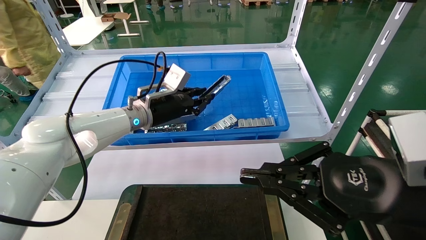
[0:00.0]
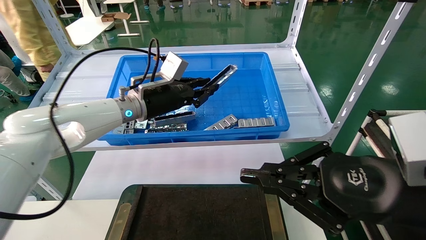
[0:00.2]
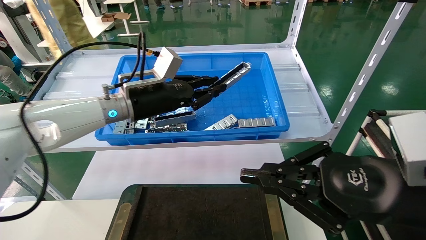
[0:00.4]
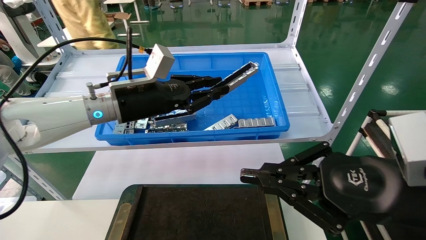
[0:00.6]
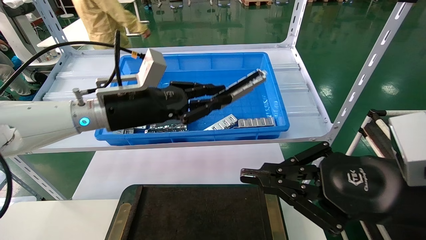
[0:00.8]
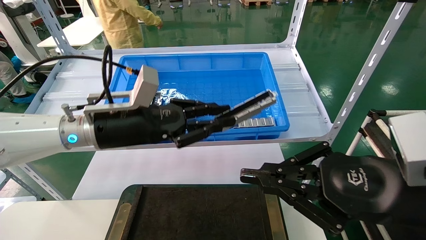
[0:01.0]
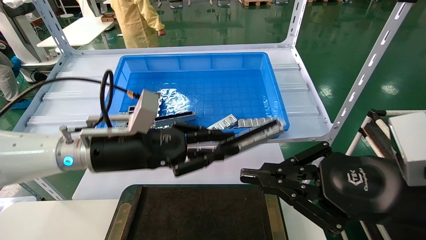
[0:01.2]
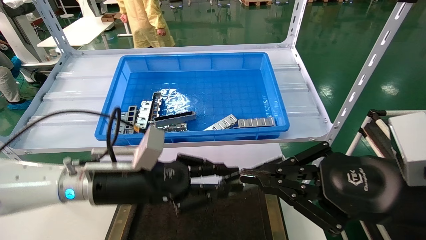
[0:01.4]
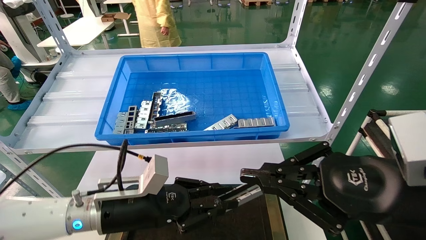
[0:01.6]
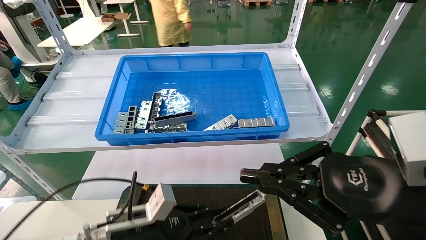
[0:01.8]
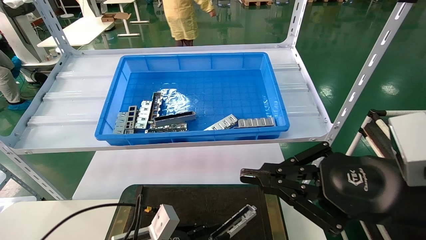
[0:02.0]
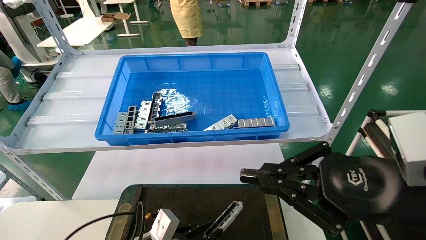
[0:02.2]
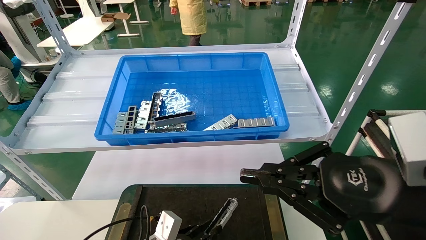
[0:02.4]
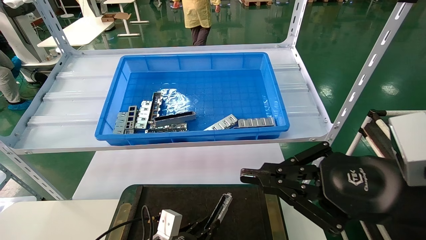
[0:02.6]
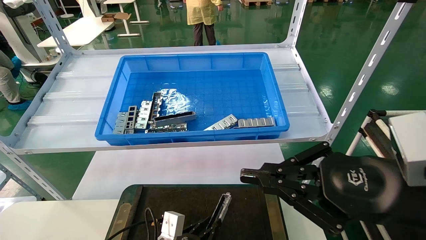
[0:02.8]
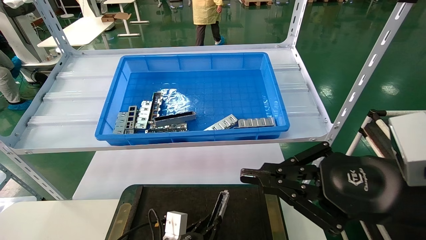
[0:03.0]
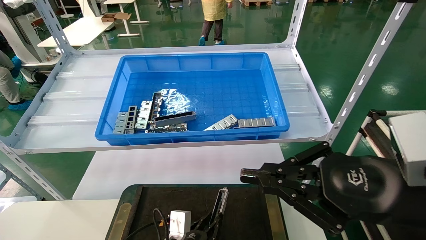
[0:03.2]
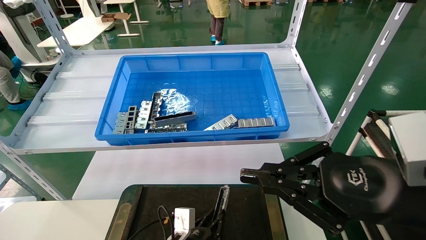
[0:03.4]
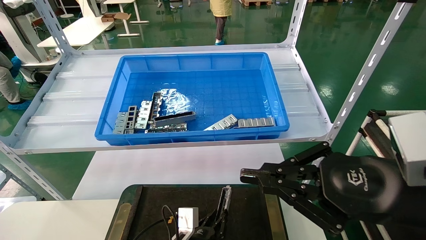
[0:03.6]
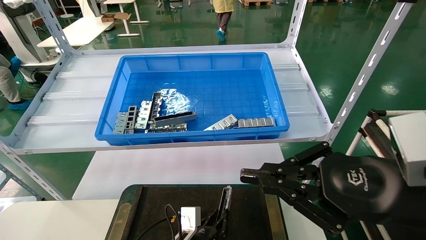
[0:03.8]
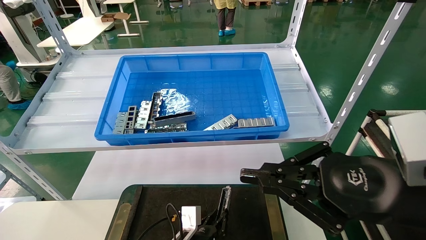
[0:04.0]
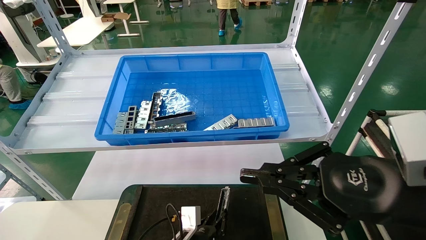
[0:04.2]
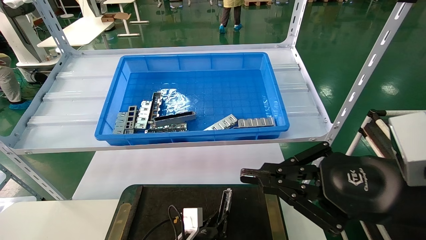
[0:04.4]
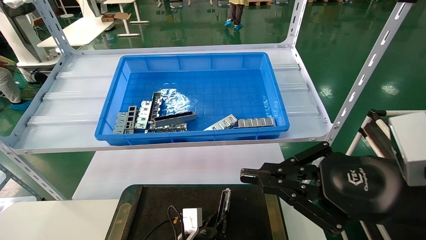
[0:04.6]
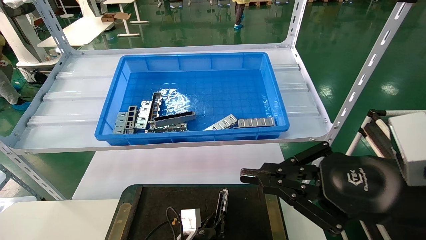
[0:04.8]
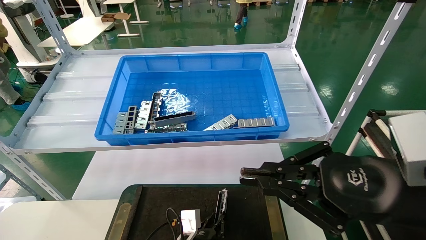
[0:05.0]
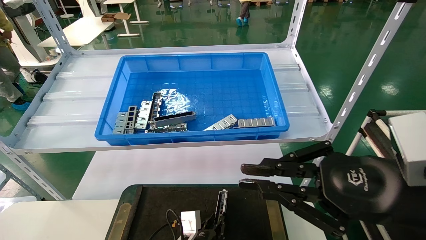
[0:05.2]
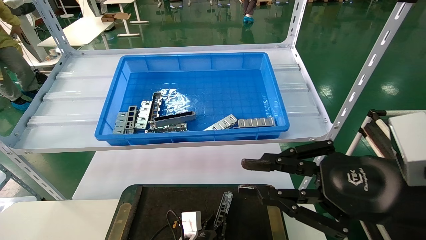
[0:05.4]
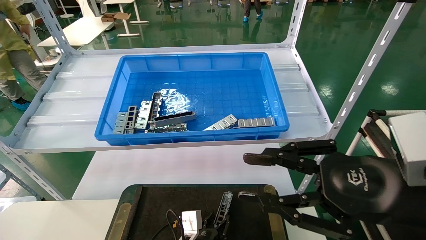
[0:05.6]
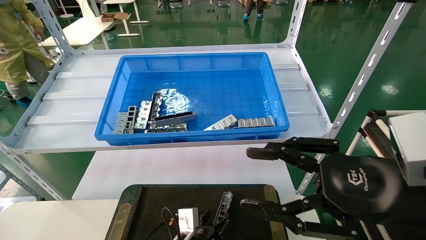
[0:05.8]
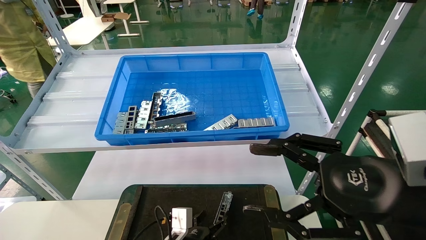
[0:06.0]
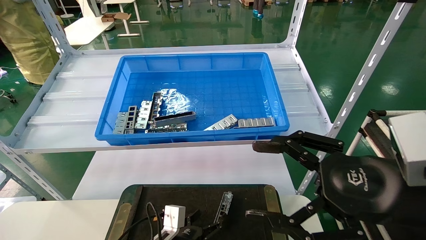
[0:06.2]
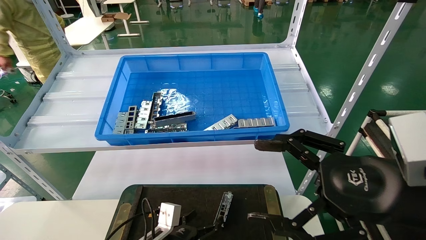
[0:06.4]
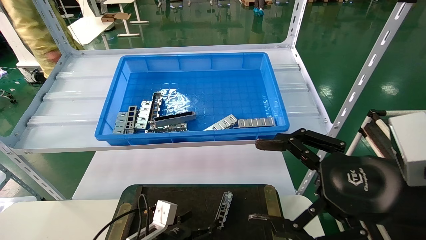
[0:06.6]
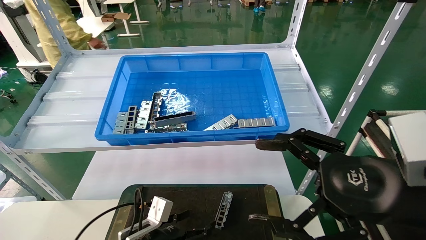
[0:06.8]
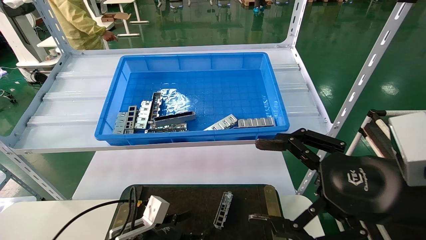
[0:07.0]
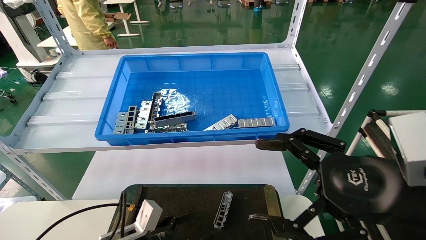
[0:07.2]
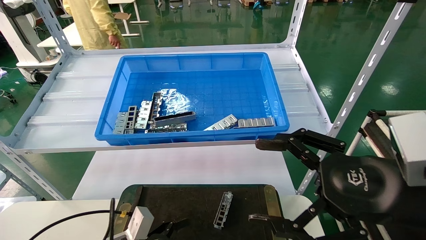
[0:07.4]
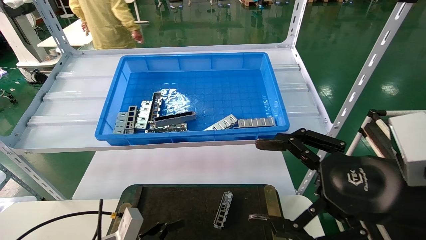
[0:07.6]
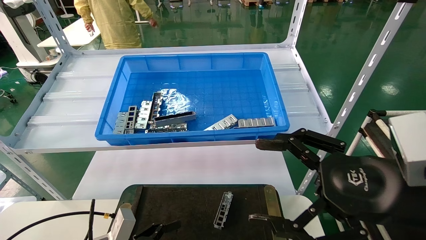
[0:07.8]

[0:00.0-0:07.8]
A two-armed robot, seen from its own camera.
Task of the whole recording: Grasp the part with one hand and place it on the black container.
Step, 0:00.0 to 0:05.2: Place the front USB bracket into the box.
0:00.0 to 0:01.6: The left gripper travels backward and downward by approximately 20 cm.
0:01.6 to 0:03.2: The left gripper moves downward and to the right, some 20 cm.
0:03.2 to 0:04.6: The grippers make only small movements.
0:04.6 to 0:06.2: The right gripper opens its fingers. The left gripper is displaced to the left by approximately 5 cm, and opens up.
0:06.2 to 0:07.8: The left gripper travels to the left, upward and backward by about 15 cm.
